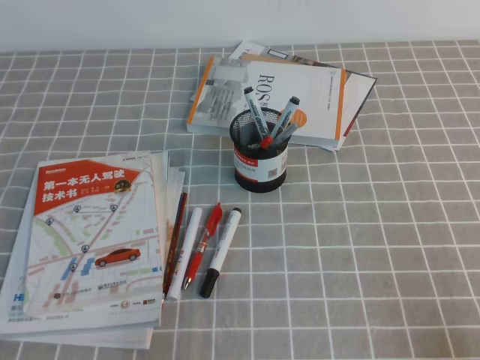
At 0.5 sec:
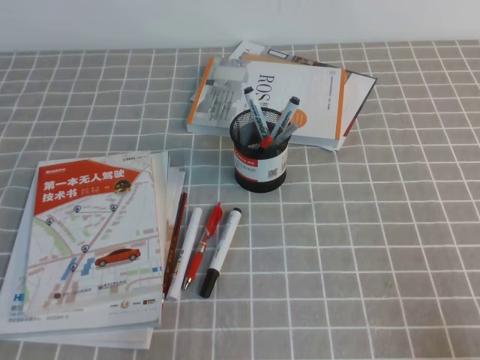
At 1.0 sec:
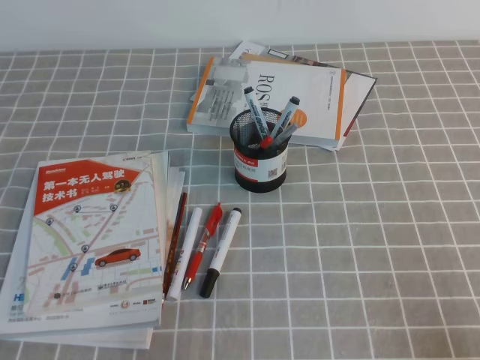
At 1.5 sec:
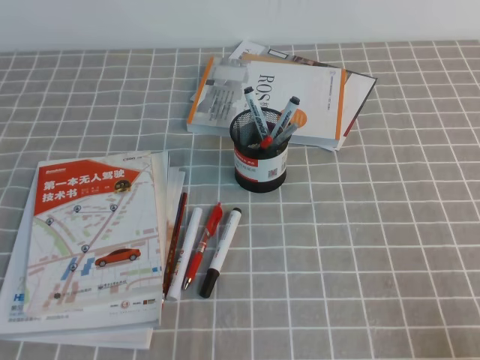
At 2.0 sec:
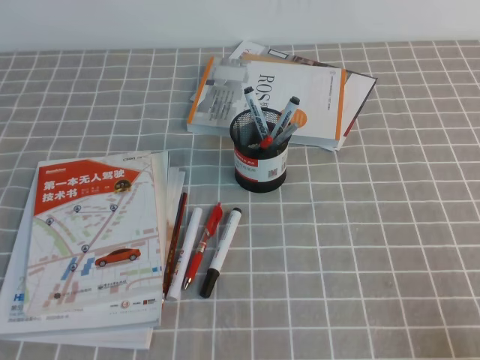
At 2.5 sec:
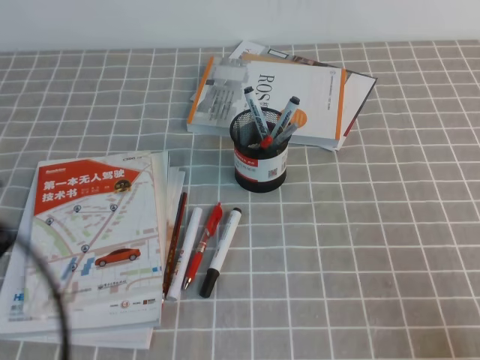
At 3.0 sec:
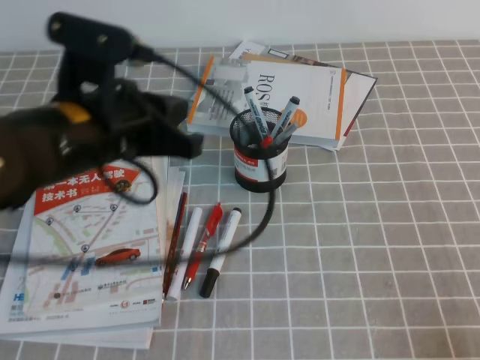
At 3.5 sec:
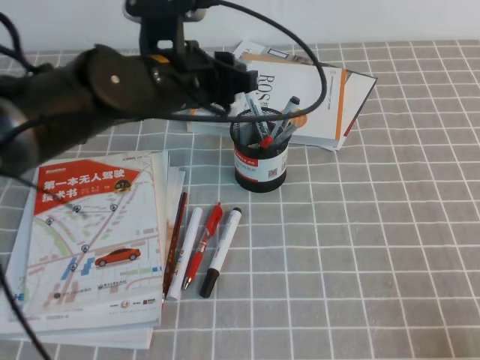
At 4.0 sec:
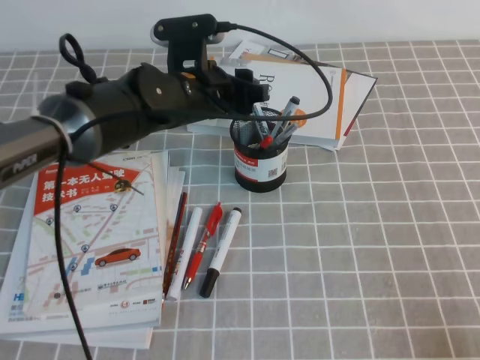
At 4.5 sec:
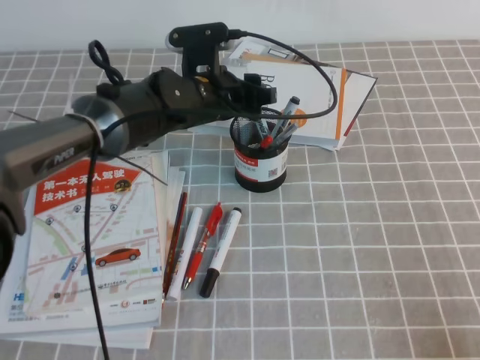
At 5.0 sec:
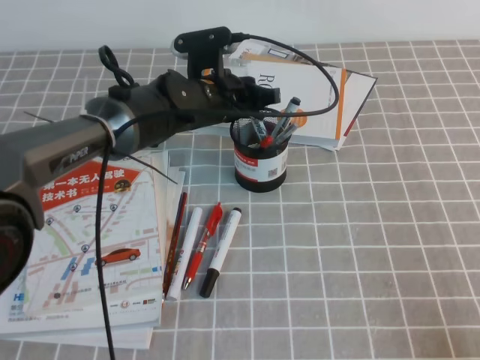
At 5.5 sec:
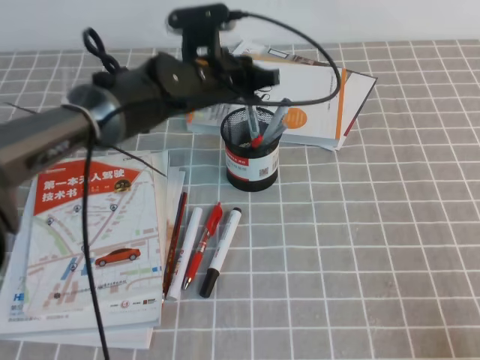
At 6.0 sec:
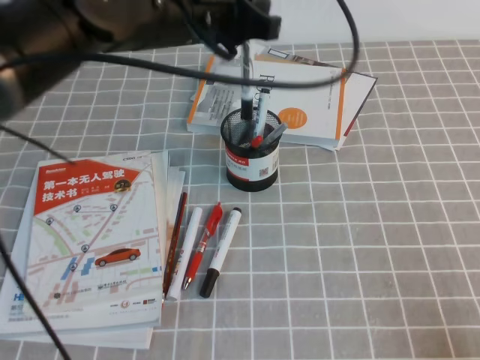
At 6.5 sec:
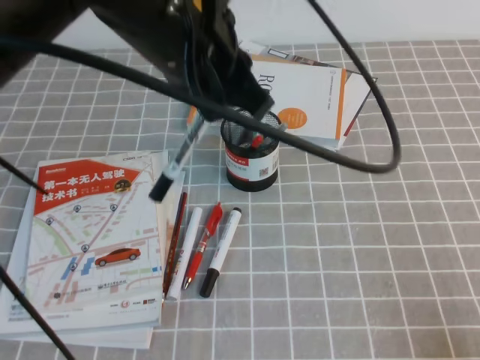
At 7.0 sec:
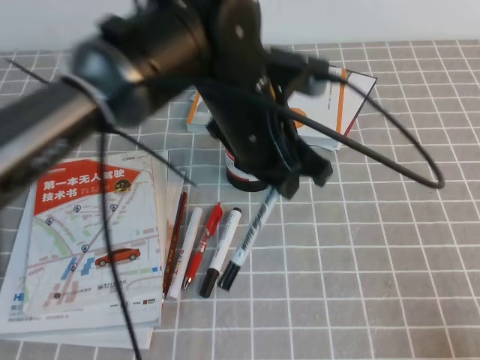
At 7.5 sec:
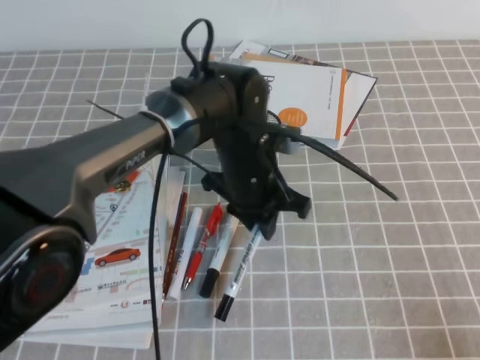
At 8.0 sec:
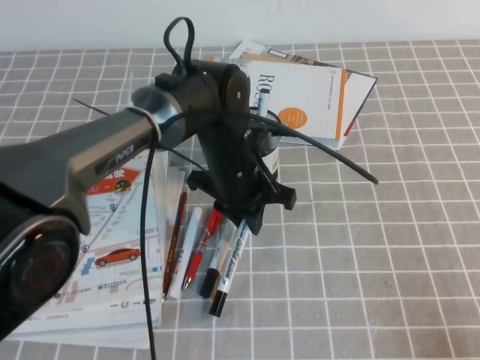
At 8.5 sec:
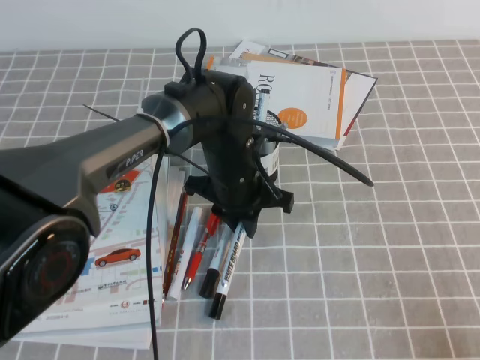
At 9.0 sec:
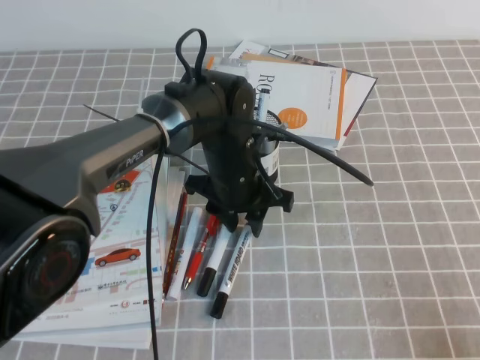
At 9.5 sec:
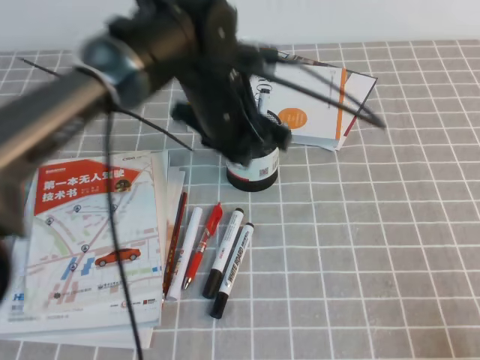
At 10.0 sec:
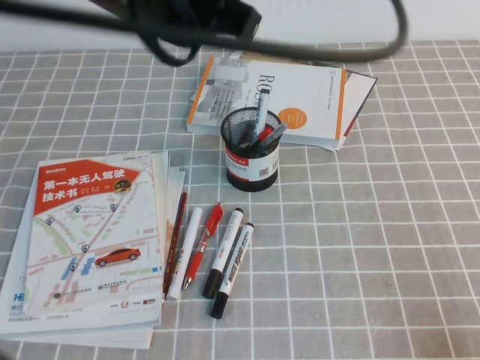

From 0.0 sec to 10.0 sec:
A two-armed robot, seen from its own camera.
From 2.0 sec to 4.0 sec: The left gripper heads forward and to the right, covering approximately 40 cm, and opens.
From 4.0 sec to 6.0 sec: The left gripper moves upward, about 10 cm, and closes its fingers.
From 6.0 sec to 8.0 sec: The left gripper shifts approximately 15 cm downward.
From 8.0 sec to 10.0 sec: The left gripper goes about 25 cm upward and backward, and opens, then closes again.

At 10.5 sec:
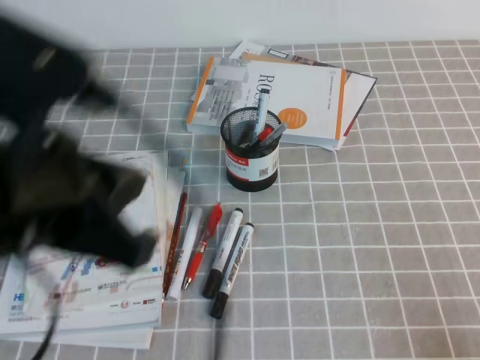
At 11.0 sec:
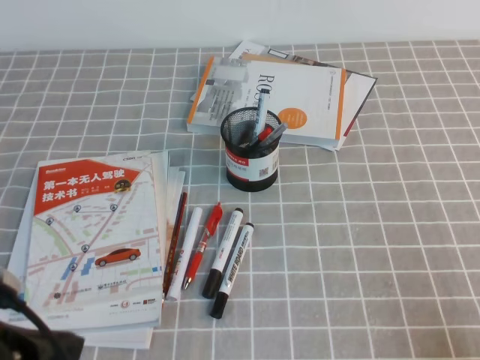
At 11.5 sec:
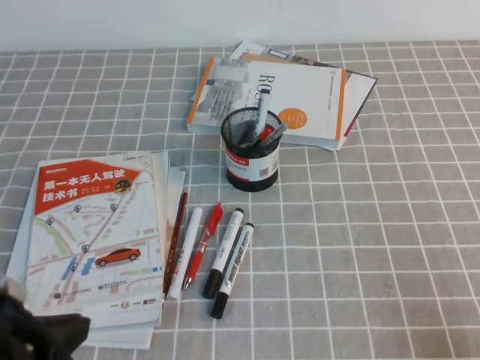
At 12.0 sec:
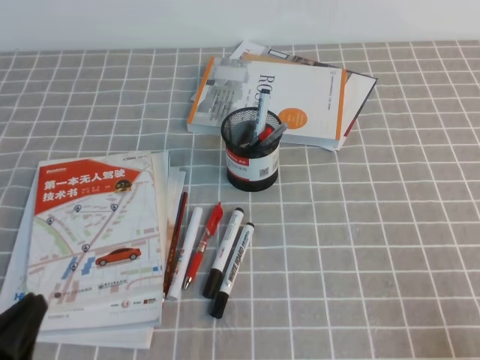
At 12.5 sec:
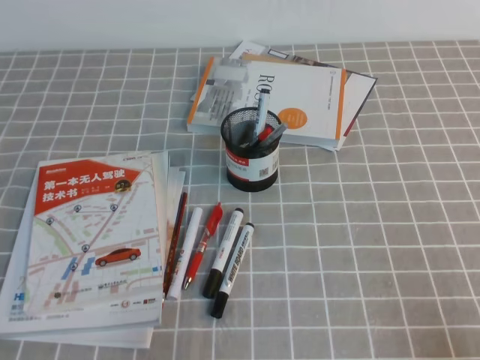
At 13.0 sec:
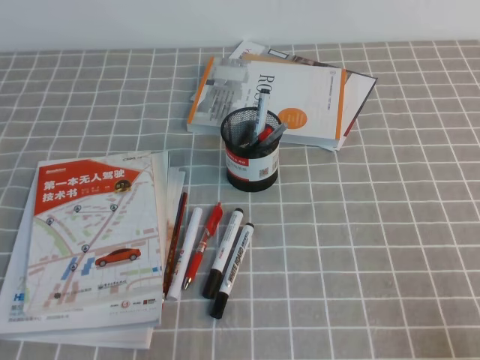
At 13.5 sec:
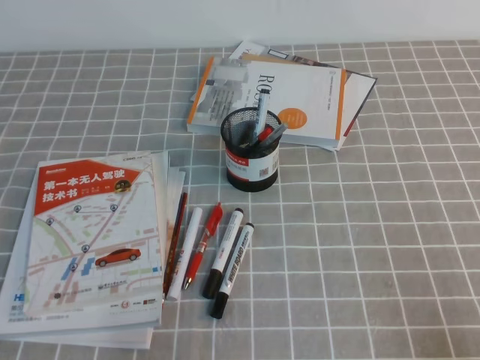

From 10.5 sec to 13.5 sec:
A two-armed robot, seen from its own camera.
Step, from 10.5 sec to 13.5 sec: Pick up the pen from the pen holder.
From 10.5 sec to 12.0 sec: The left gripper shifts roughly 25 cm downward and to the left.
